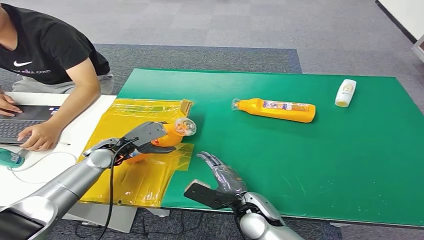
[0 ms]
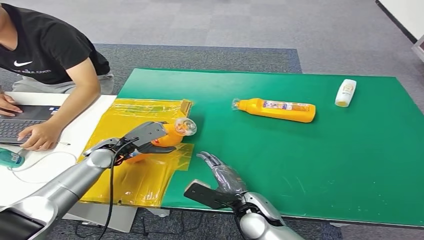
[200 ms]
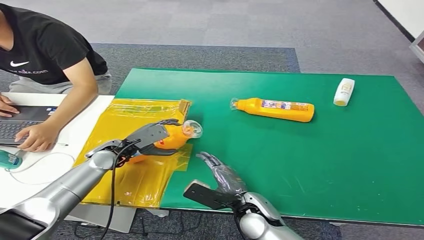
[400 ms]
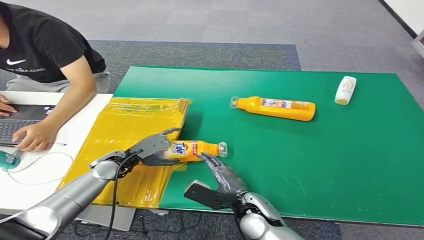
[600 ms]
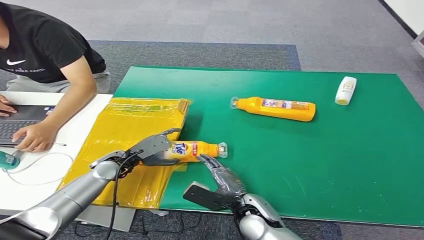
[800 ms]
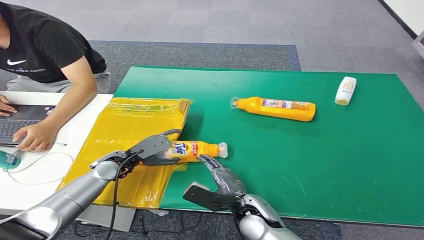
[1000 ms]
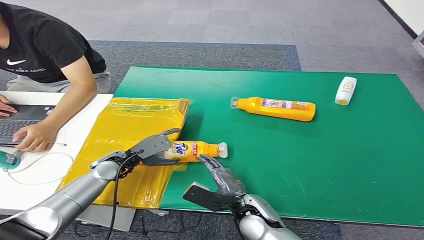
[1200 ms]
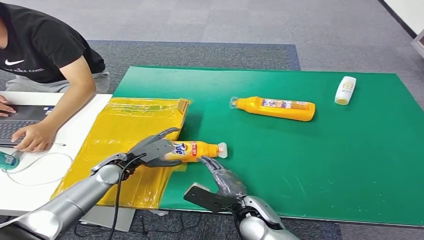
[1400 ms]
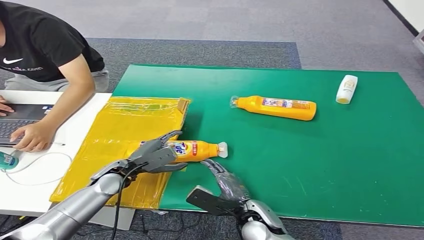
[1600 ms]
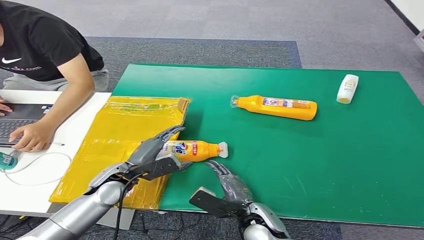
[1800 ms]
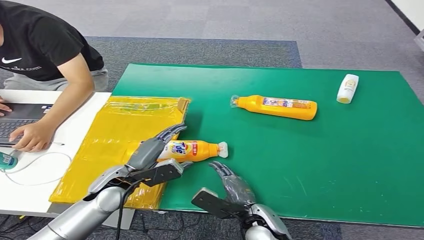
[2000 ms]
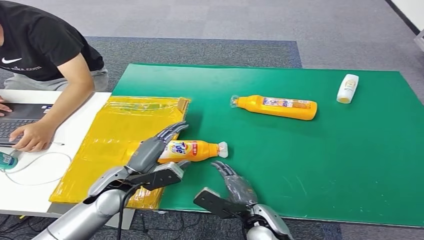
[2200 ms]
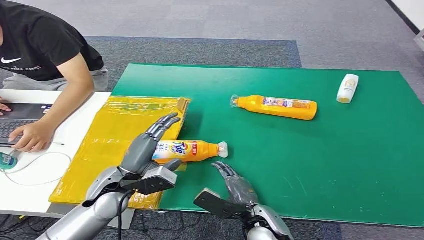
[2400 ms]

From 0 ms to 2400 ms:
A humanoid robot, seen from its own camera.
Step, from 0 ms to 2400 ms: Turn the bottle to the front side.
From 0 ms to 1200 ms: There are only small adjustments of the hands.
From 1200 ms to 2400 ms: The left hand heads backward, upward and to the right, covering about 10 cm.
